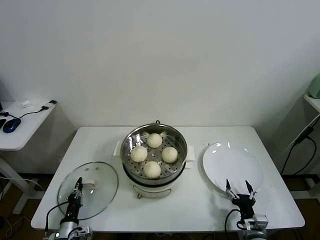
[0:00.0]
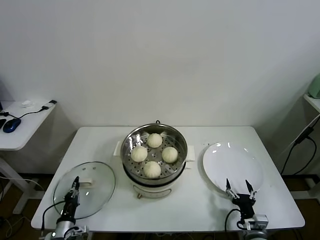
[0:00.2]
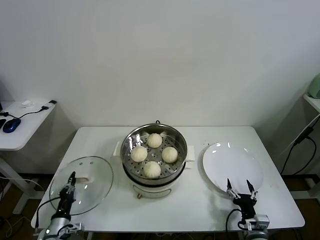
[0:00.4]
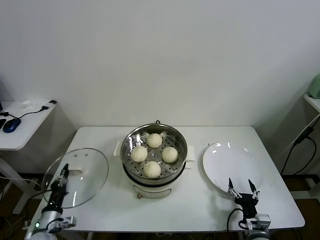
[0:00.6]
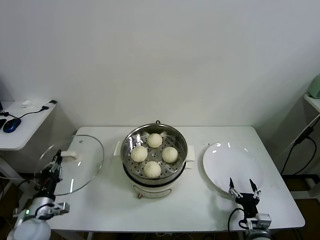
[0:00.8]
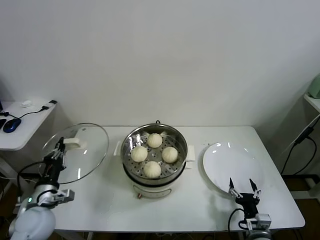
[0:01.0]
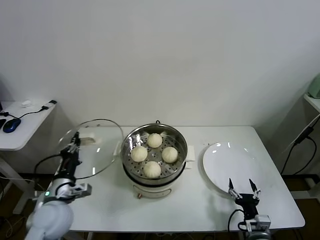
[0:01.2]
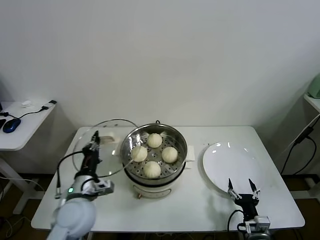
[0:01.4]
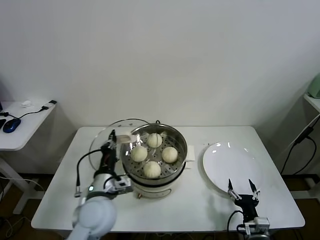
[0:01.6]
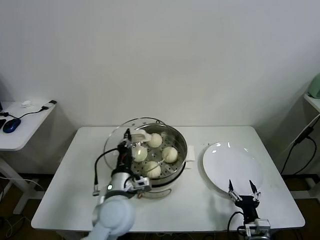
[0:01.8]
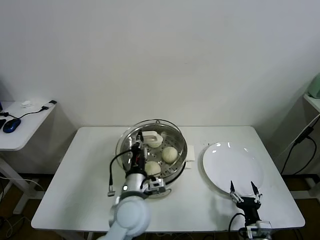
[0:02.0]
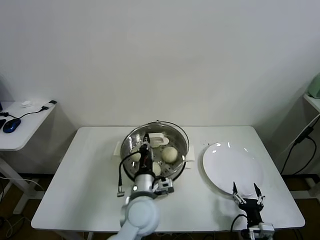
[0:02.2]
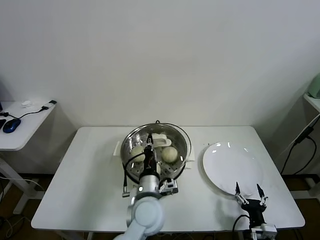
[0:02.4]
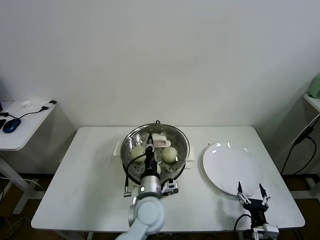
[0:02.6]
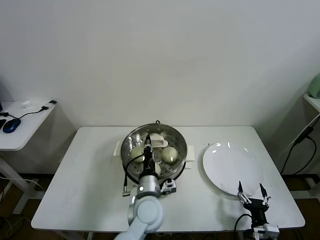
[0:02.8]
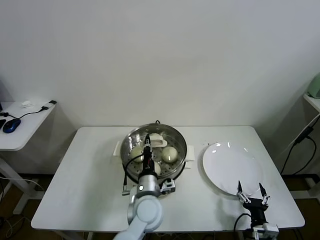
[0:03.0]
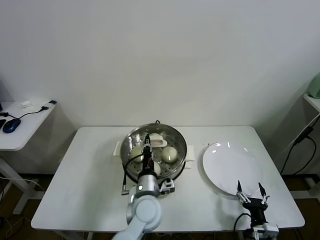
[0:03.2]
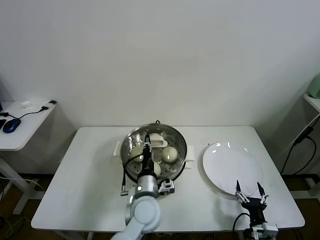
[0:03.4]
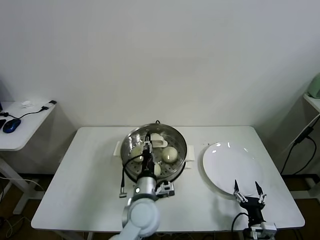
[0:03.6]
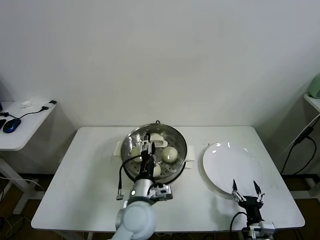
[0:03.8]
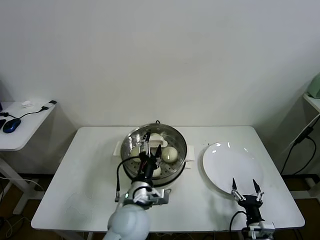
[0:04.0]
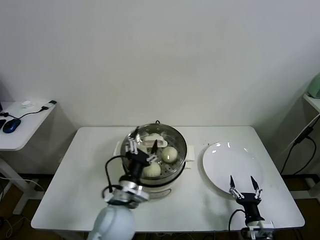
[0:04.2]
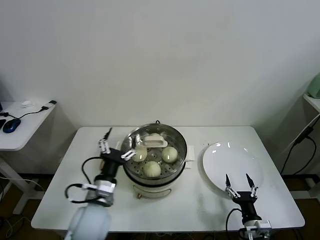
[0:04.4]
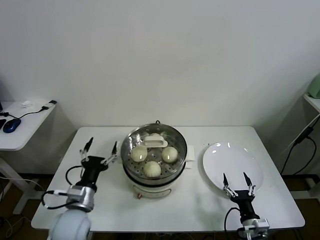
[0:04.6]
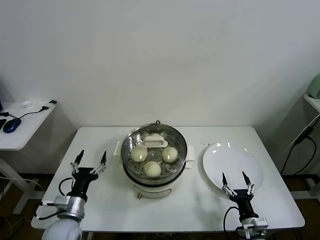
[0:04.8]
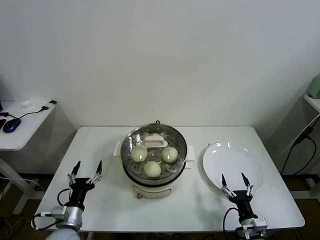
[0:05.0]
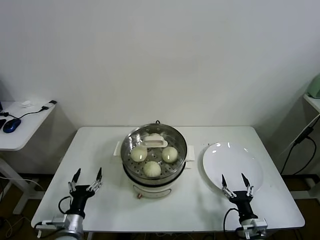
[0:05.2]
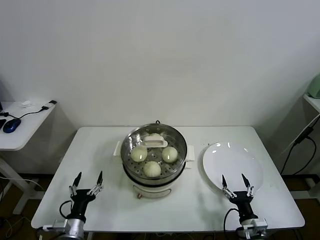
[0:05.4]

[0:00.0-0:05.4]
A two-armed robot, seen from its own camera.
Task of the whole recording: take steamed baozi put them in steamer.
Step, 0:00.2 to 0:03.8: Place the pot lid on the steamer with left gripper.
0:00.0 to 0:01.4: The left gripper moves upward and to the right, approximately 25 cm.
0:01.4 to 0:02.8: The left gripper moves to the right, approximately 20 cm.
0:02.8 to 0:04.0: The left gripper shifts by approximately 5 cm, and opens its fingers.
0:04.0 to 0:05.4: The left gripper shifts some 25 cm to the left and downward.

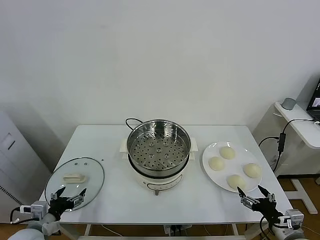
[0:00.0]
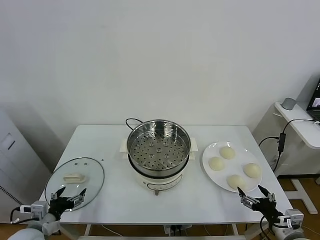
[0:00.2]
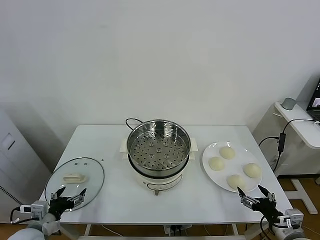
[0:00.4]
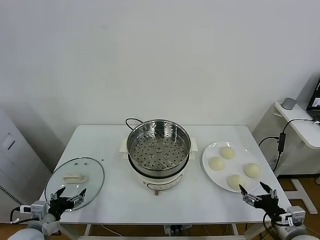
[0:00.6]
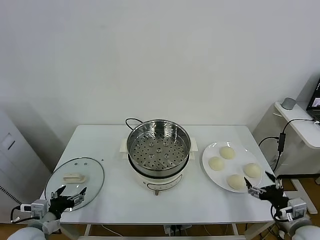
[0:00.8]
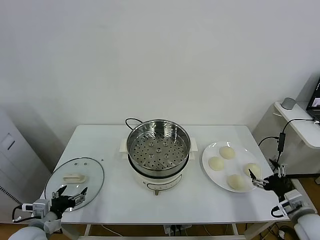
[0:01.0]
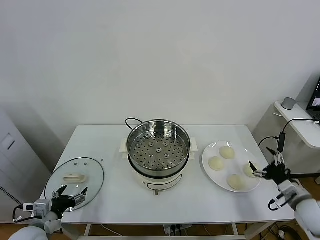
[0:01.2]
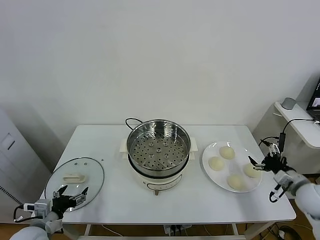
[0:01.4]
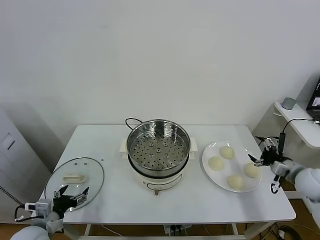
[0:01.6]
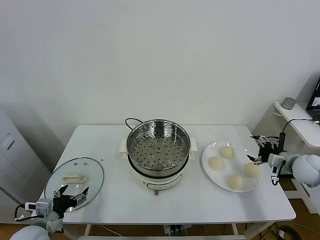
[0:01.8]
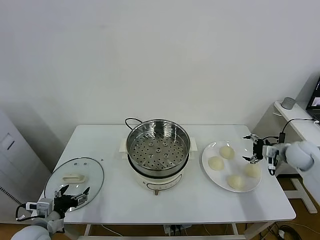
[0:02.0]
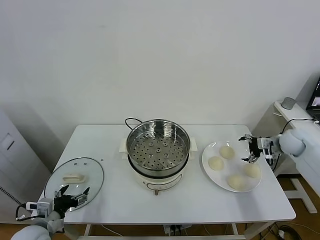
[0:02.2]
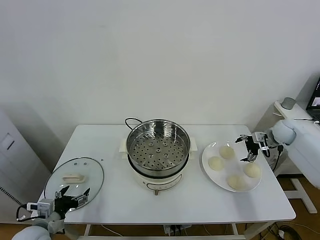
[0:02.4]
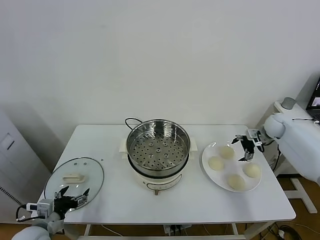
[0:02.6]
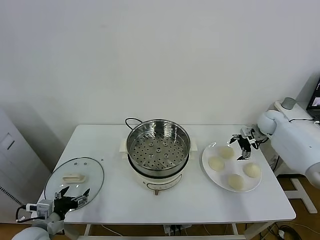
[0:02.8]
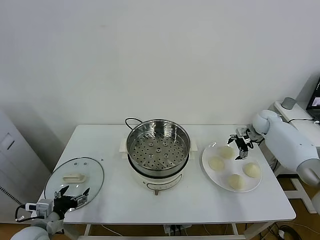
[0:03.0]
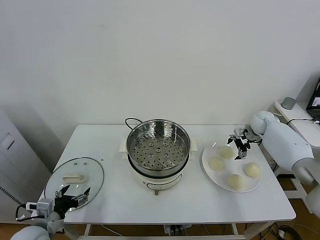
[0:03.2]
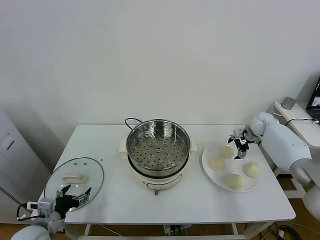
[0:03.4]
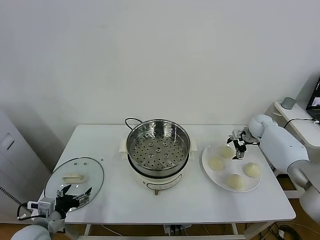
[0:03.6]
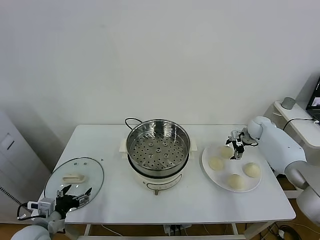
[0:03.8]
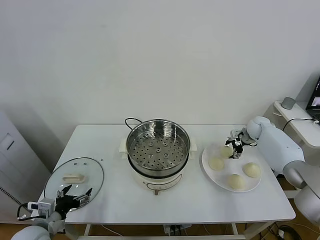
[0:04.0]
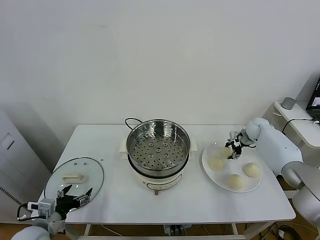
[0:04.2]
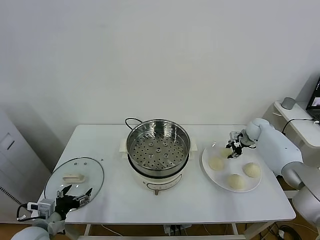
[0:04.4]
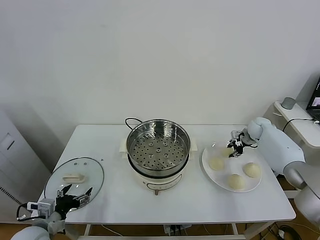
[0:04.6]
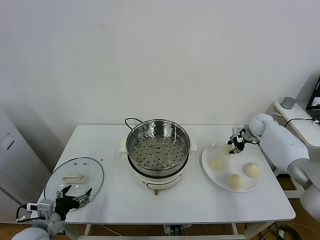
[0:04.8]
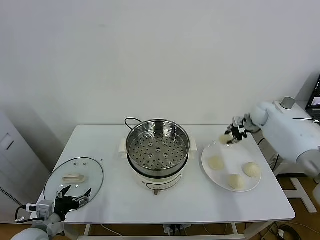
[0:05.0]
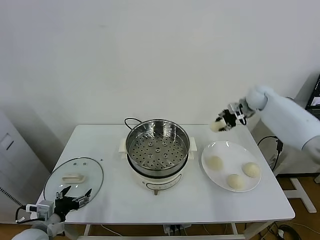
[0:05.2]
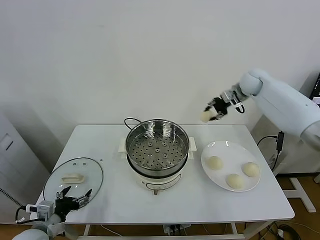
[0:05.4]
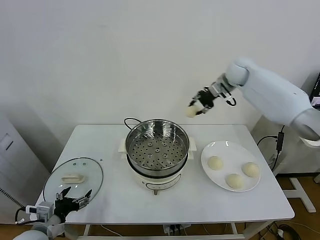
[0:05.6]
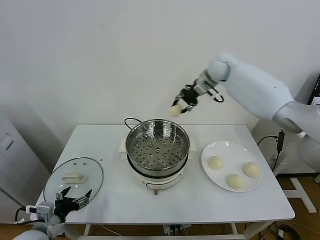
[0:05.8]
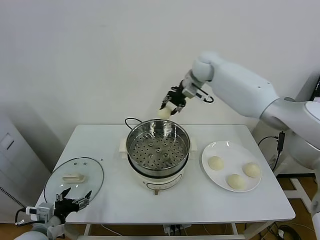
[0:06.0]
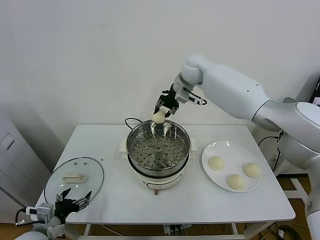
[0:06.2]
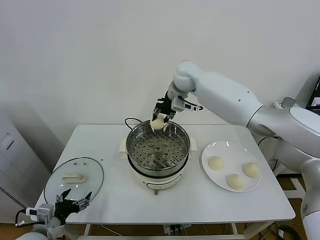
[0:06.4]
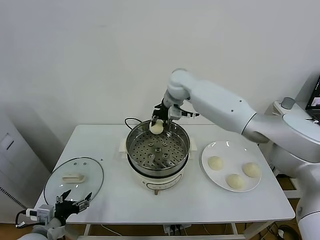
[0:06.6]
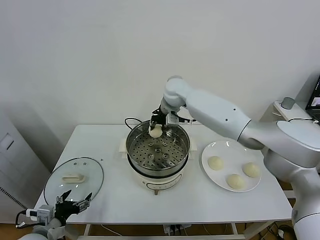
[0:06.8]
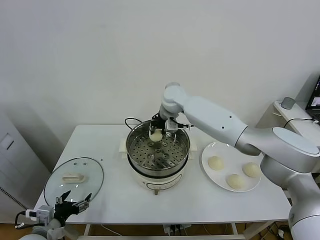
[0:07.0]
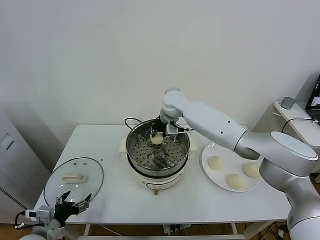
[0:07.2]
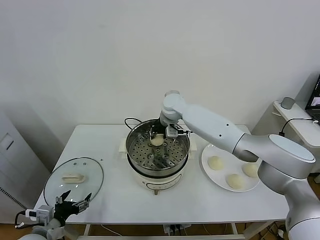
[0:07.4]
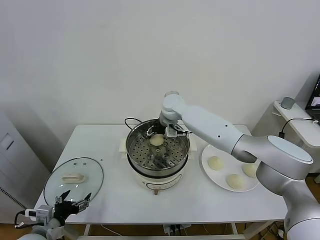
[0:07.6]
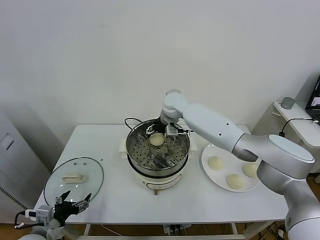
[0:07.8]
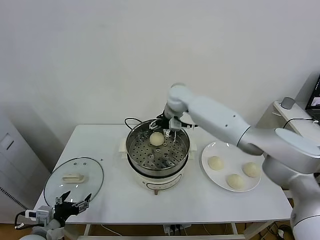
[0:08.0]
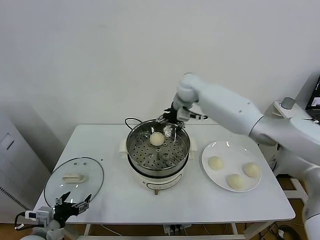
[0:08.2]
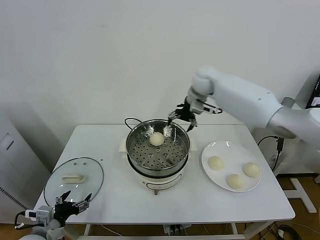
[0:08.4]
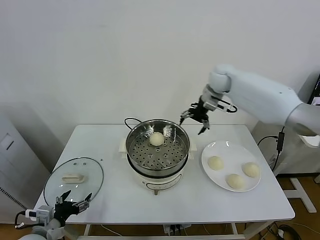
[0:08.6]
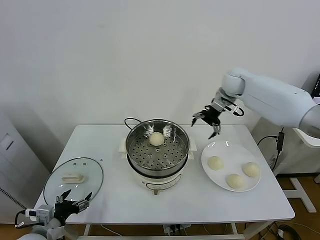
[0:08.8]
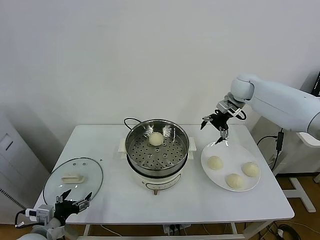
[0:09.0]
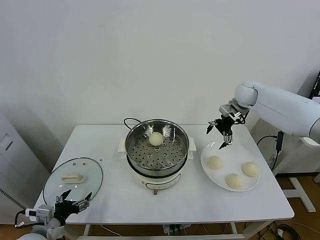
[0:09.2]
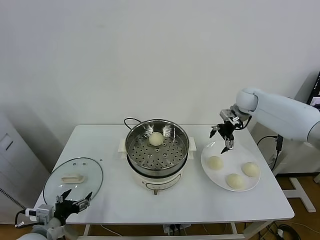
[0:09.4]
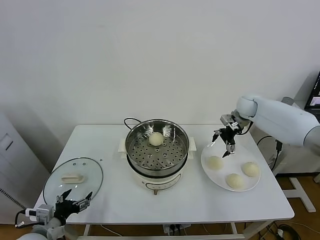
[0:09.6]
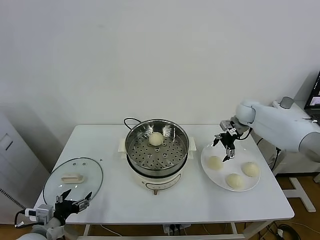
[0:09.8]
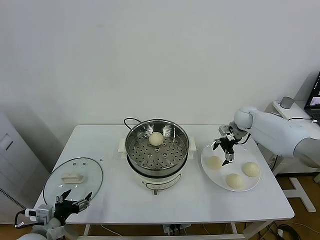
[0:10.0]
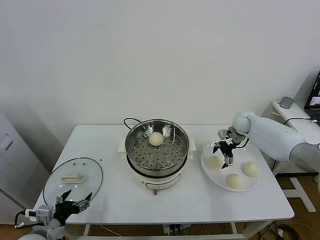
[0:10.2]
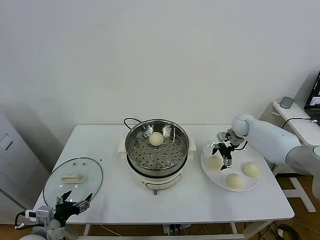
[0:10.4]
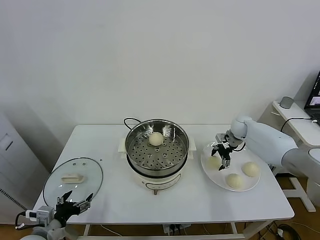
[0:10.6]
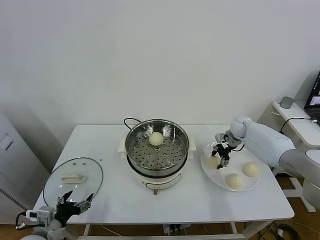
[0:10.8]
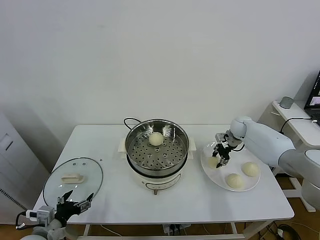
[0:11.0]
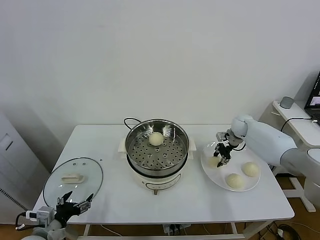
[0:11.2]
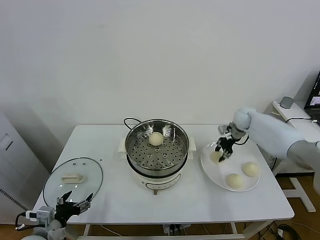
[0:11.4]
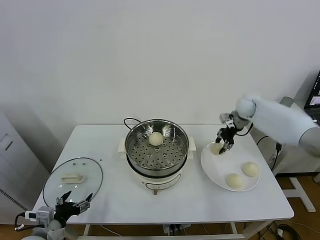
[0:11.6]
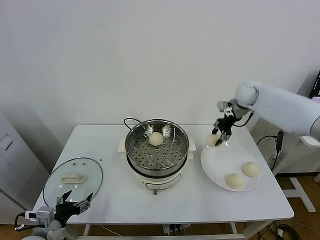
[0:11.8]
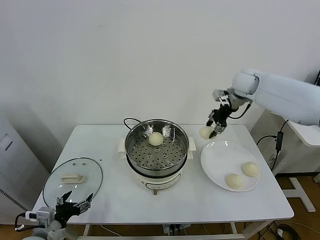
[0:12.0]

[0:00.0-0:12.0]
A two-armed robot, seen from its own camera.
Task of the whole recording: take steamed baozi put them in steamer.
Step, 0:00.0 to 0:04.4: Grasp the baozi in the plate with right gripper.
Step, 0:04.6 to 0:07.8: Place the baozi on the steamer with right gripper.
Step, 0:08.2 to 0:11.0: Grasp the baozi in the plate with right gripper.
0:01.6 to 0:03.0: The right gripper goes roughly 25 cm forward.
0:03.0 to 0:04.4: The right gripper closes up.
0:04.4 to 0:06.0: The right gripper travels to the left and upward by approximately 40 cm.
0:06.0 to 0:07.6: The right gripper is displaced downward and to the left by approximately 15 cm, and opens.
0:07.6 to 0:09.0: The right gripper goes approximately 25 cm to the right.
0:09.0 to 0:10.4: The right gripper heads downward, covering approximately 15 cm.
0:10.4 to 0:12.0: The right gripper goes about 25 cm upward, and closes.

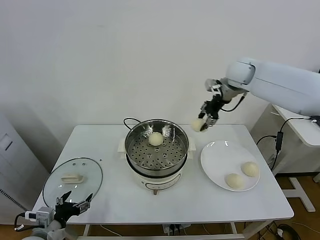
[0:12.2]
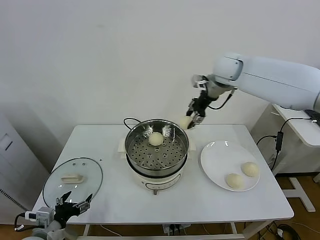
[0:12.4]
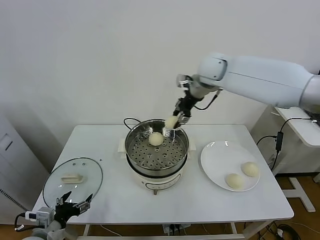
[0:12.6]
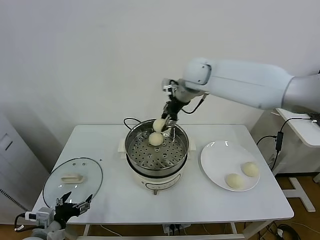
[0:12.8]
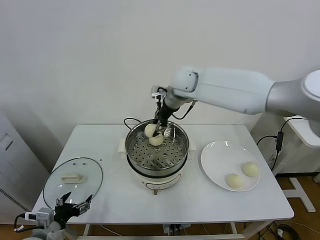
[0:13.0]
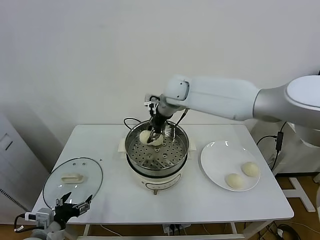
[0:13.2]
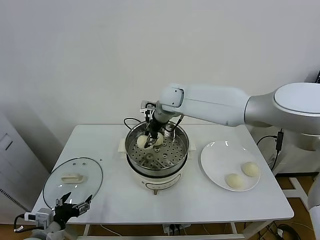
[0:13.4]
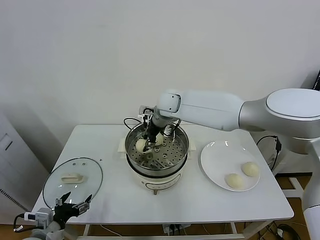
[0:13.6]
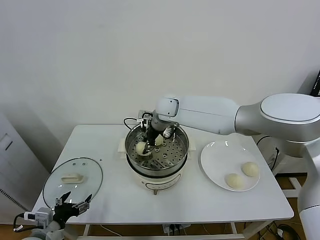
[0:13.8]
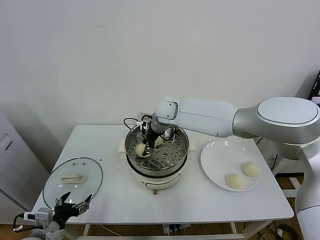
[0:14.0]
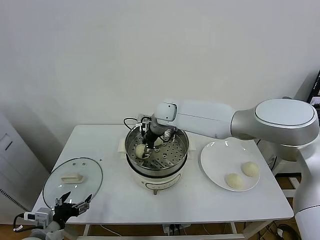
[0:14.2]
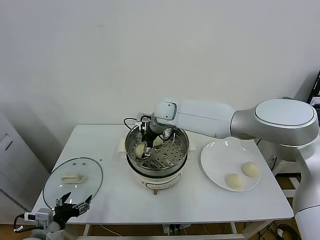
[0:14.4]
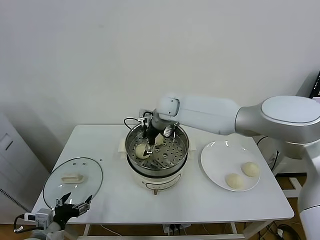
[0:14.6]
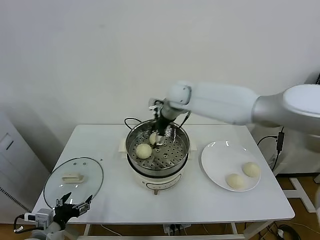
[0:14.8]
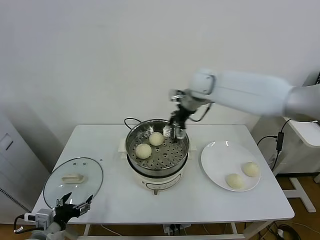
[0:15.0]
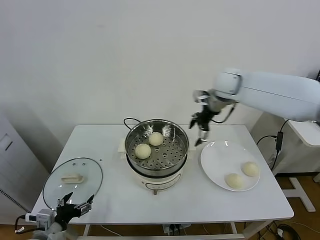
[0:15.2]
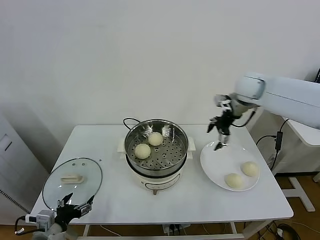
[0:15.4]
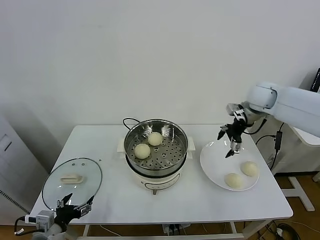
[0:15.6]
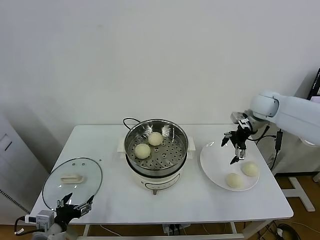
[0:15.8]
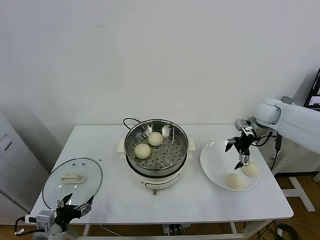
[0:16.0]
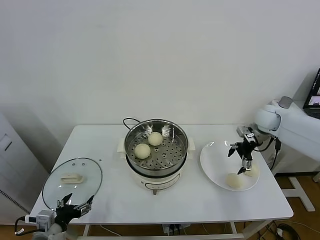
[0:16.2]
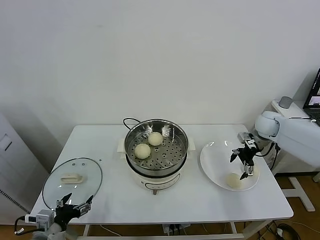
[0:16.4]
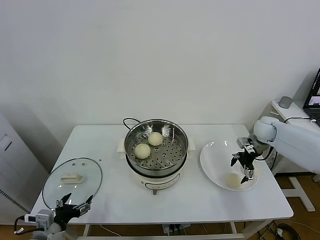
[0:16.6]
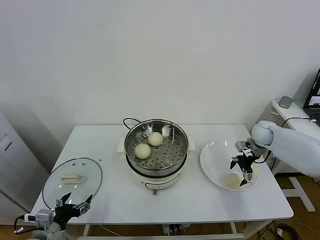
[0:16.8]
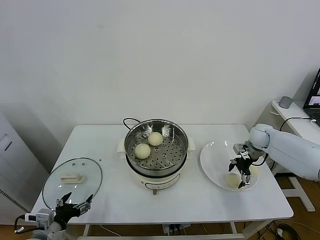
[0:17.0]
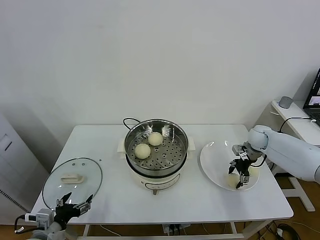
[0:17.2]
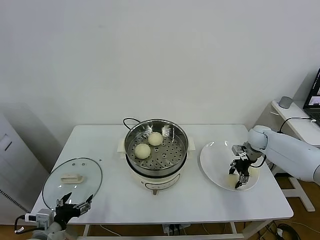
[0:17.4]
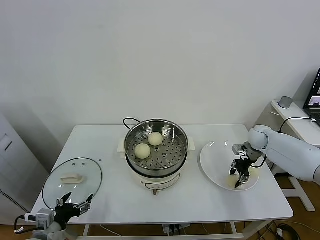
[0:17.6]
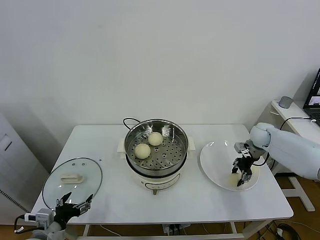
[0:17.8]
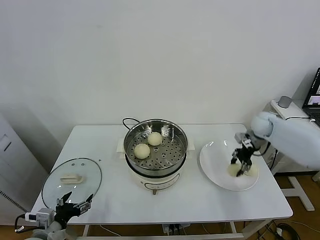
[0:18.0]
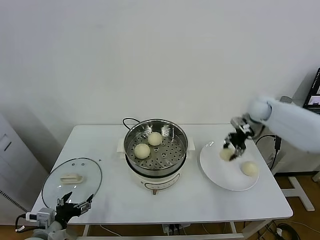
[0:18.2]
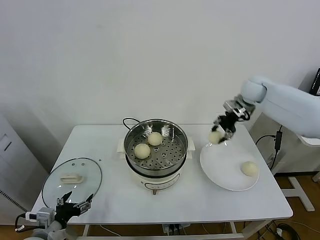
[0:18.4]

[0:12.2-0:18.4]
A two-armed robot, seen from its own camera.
Task of the whole recording: take steamed baozi put them in steamer.
Step, 0:12.2 to 0:14.4: Place the baozi on the steamer with right gripper.
Step, 0:14.6 to 0:17.6: Grasp the baozi in the plate with right gripper.
0:12.2 to 0:13.8: The right gripper moves to the left and downward, approximately 25 cm.
0:13.8 to 0:15.4: The right gripper travels to the right by roughly 30 cm, and opens its fingers.
0:15.4 to 0:16.8: The right gripper travels downward and to the right by approximately 20 cm.
0:16.8 to 0:18.4: The right gripper goes roughly 20 cm upward and to the left, and closes up.
